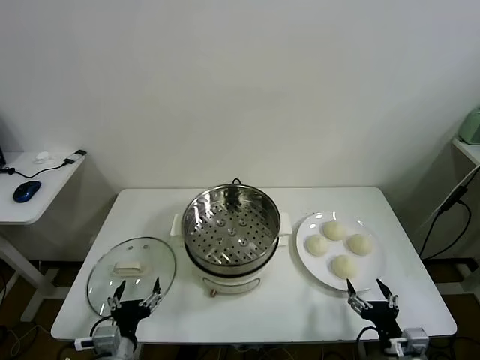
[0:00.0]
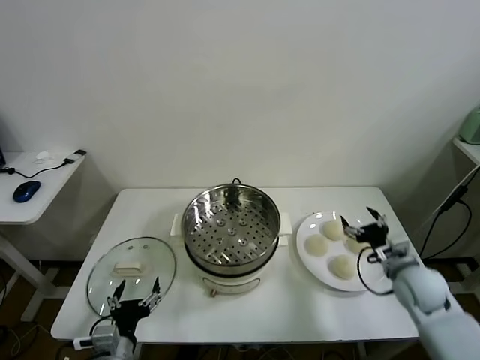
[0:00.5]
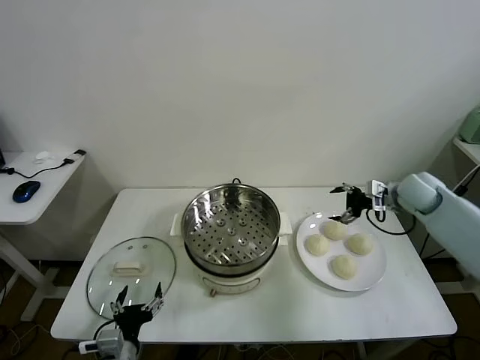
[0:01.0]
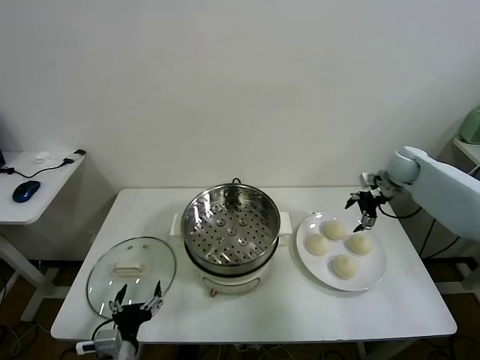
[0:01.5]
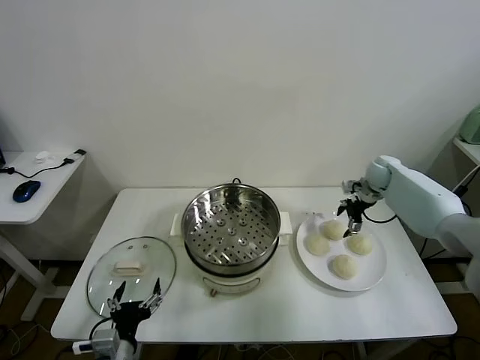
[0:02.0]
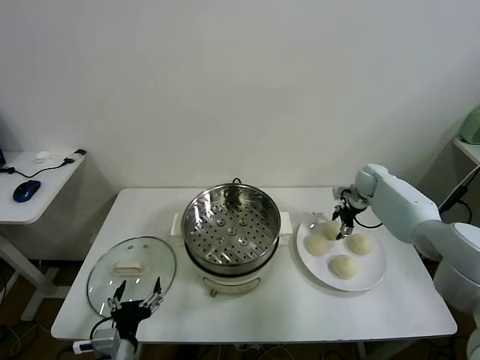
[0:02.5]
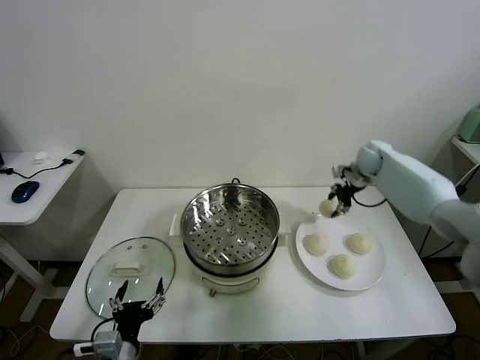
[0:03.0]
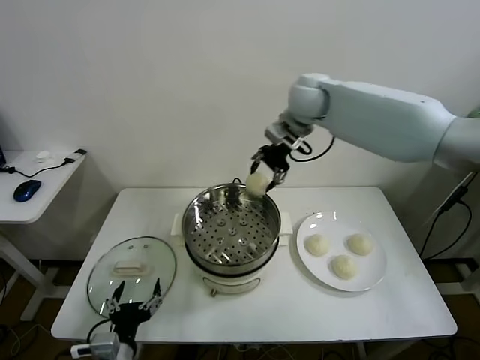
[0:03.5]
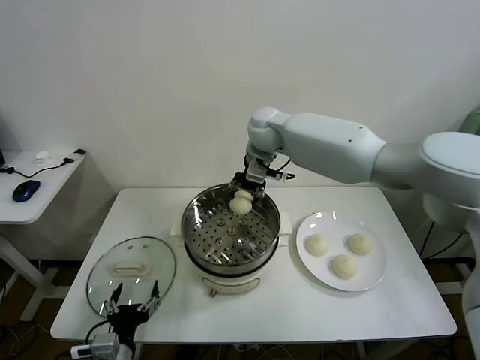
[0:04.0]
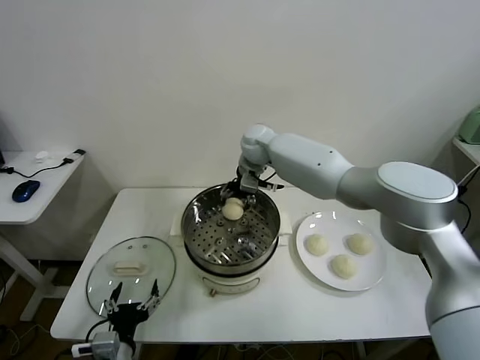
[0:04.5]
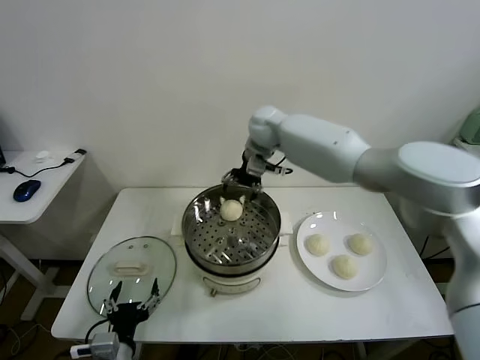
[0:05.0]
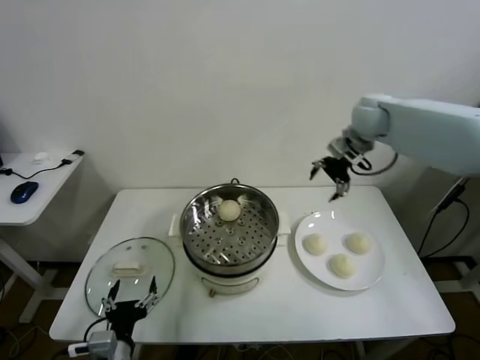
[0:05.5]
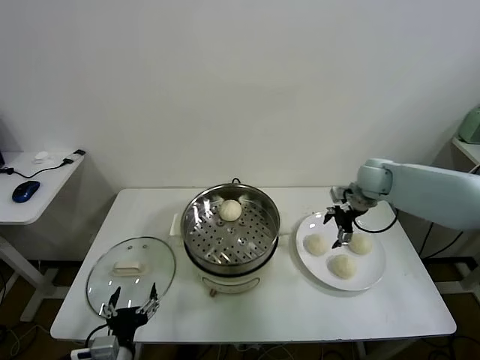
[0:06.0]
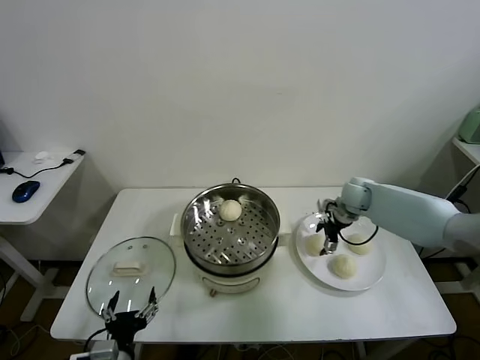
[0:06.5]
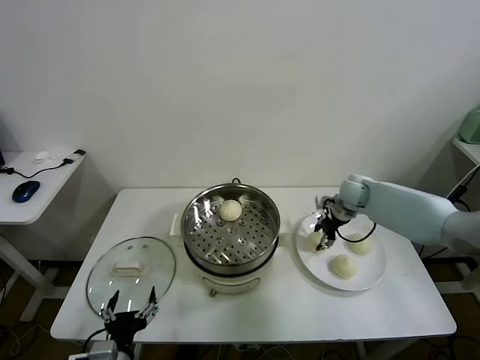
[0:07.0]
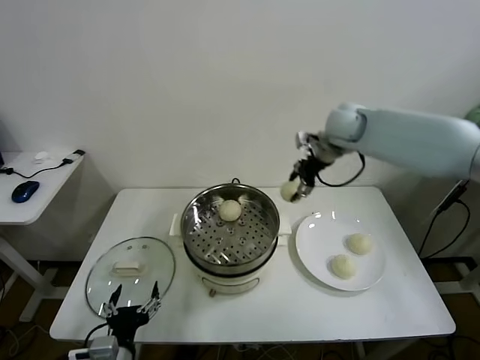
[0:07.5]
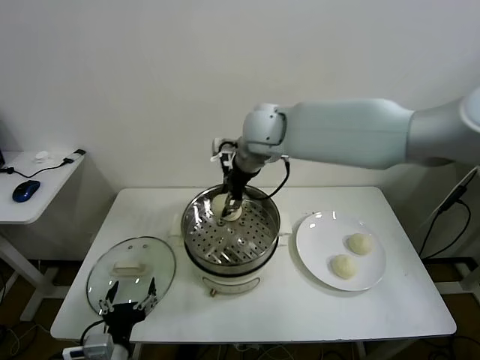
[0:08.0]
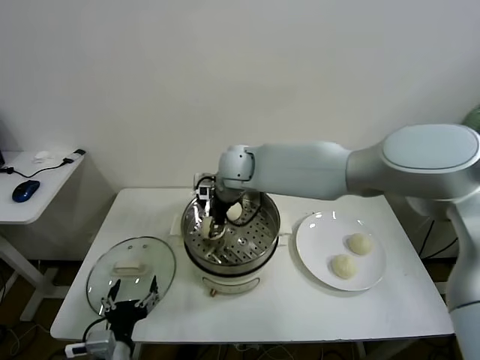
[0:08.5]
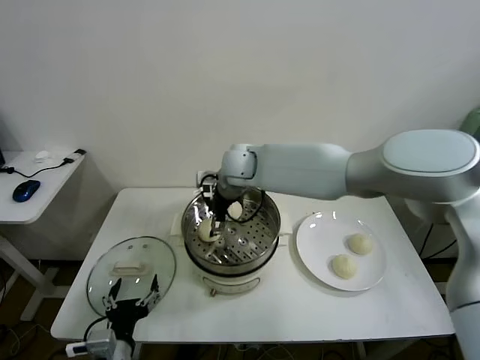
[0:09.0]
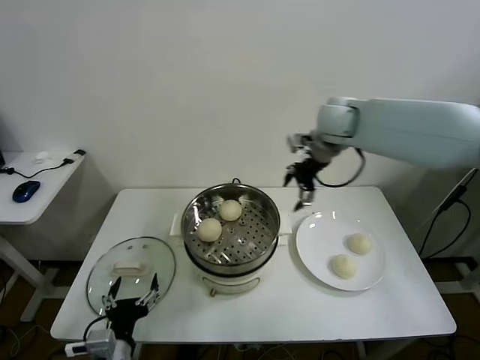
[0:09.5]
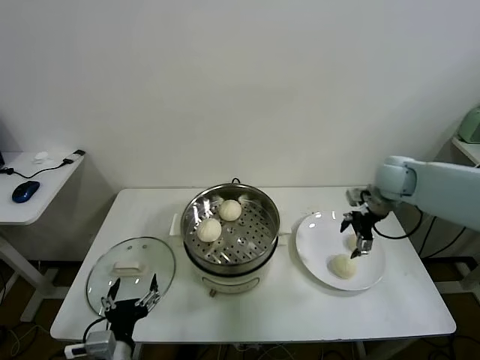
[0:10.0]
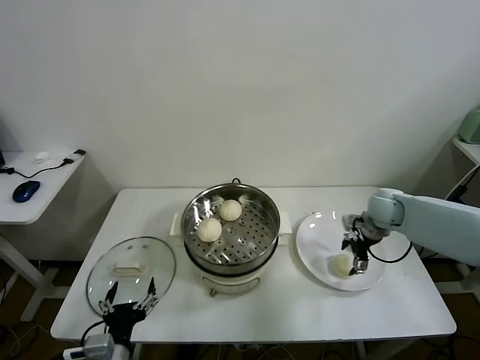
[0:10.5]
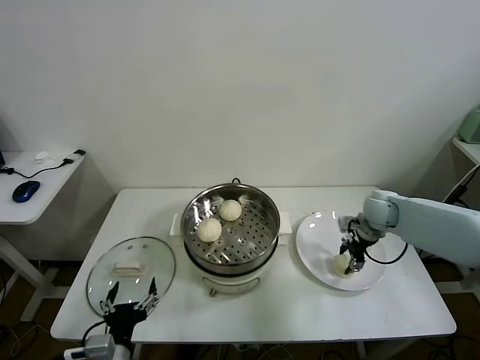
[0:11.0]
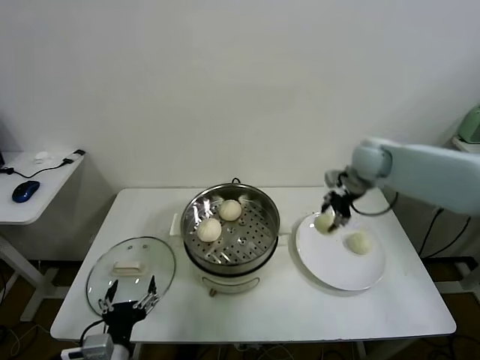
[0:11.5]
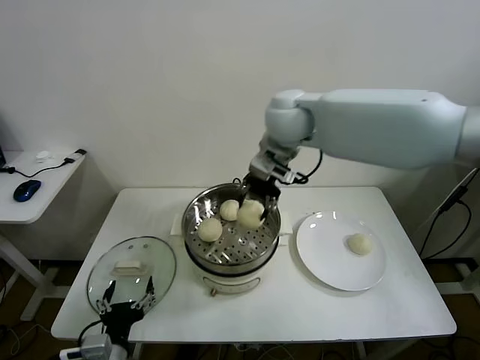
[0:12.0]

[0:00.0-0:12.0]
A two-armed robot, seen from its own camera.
Task of the whole recording: take steamed baozi put them in steamer.
Step, 0:00.0 to 0:02.5: Grasp the baozi in the plate with right gripper.
Step, 0:03.0 to 0:04.5: Place the baozi on the steamer with right gripper.
Step, 0:05.0 to 0:06.5: Grasp the baozi in the plate with right gripper.
Step, 0:07.0 to 0:09.0: Place the baozi on the steamer with right gripper.
Step, 0:09.5 to 0:11.0: Grasp the baozi in the plate with right gripper.
0:02.0 to 0:04.0: The right gripper moves to the left and upward, some 35 cm, and closes up.
0:04.0 to 0:06.0: The right gripper goes about 30 cm to the right and downward, and opens up.
0:06.0 to 0:08.0: The right gripper shifts roughly 35 cm to the left and upward, and closes up.
0:08.0 to 0:10.0: The right gripper moves to the right, about 35 cm, and opens up.
0:10.0 to 0:12.0: The right gripper shifts some 35 cm to the left and upward, and closes its fingers.

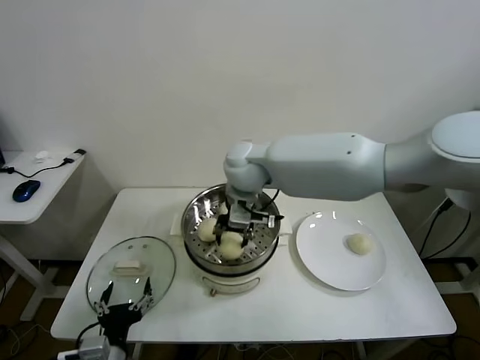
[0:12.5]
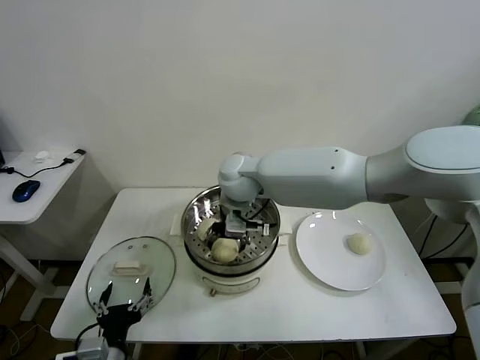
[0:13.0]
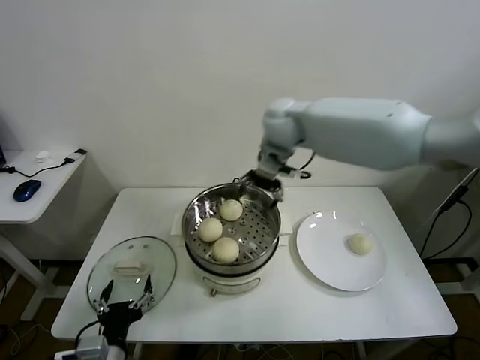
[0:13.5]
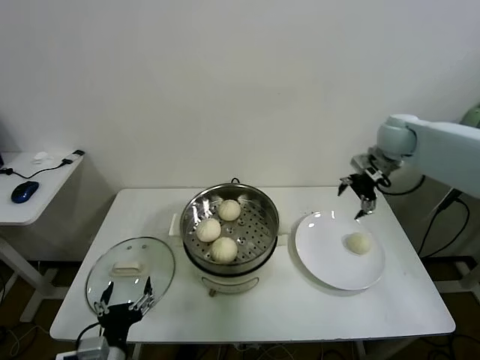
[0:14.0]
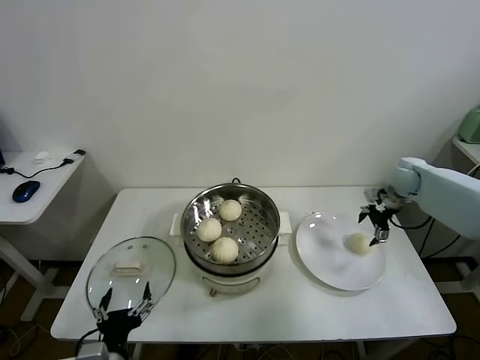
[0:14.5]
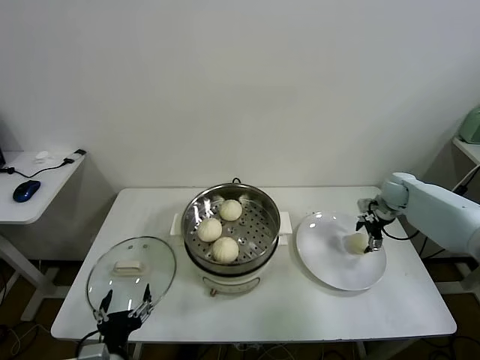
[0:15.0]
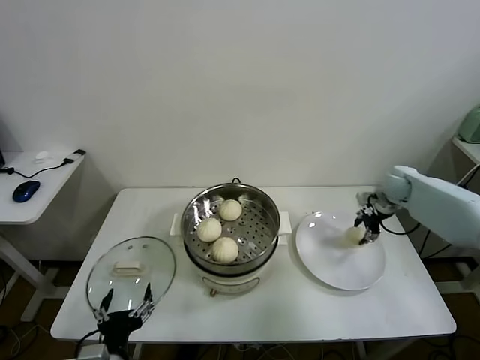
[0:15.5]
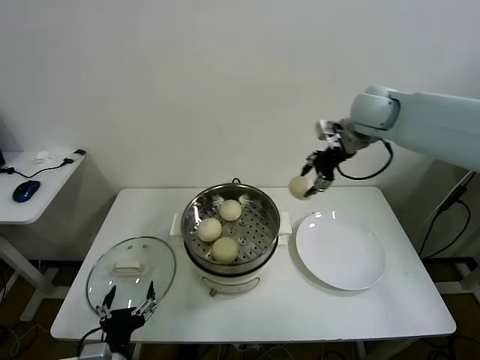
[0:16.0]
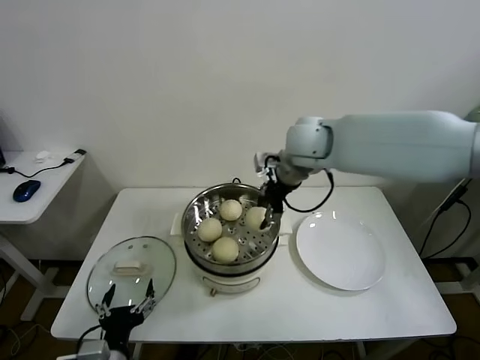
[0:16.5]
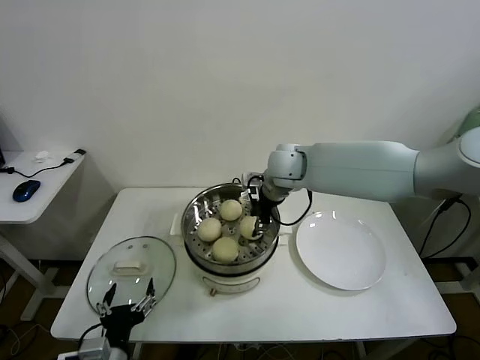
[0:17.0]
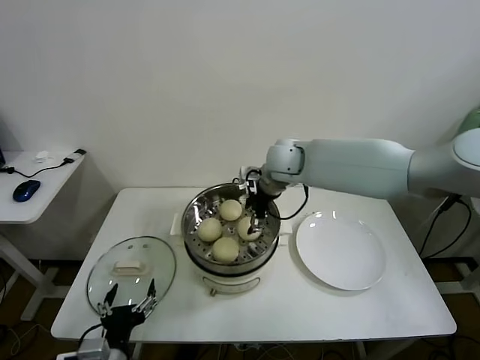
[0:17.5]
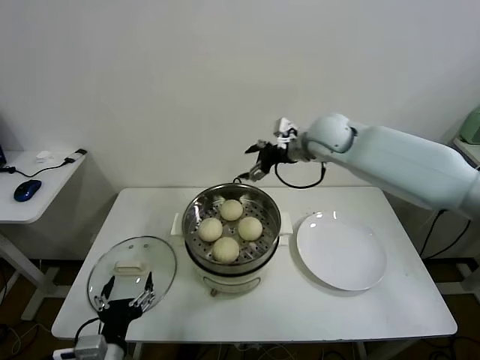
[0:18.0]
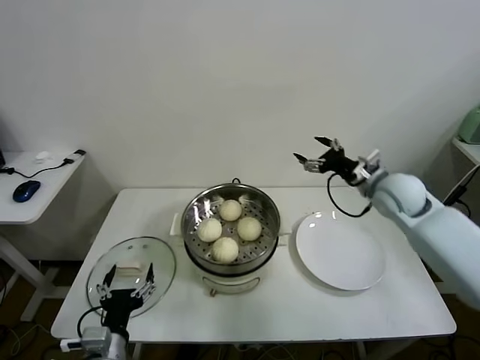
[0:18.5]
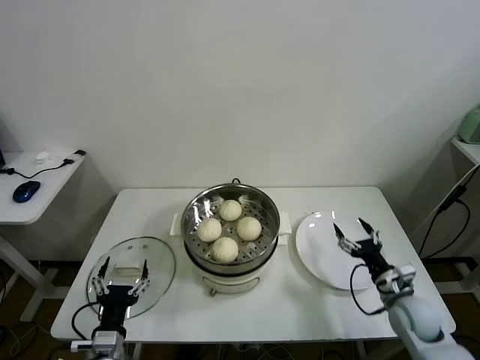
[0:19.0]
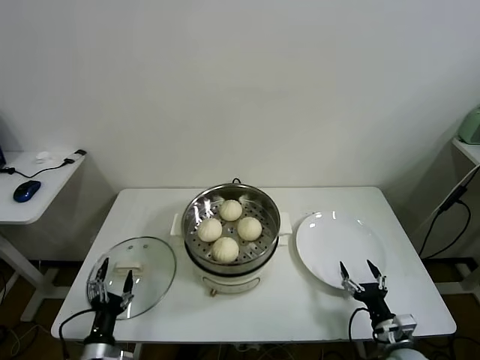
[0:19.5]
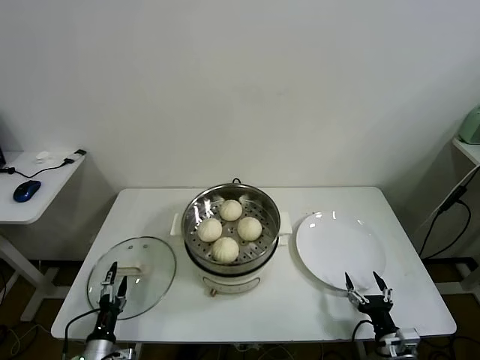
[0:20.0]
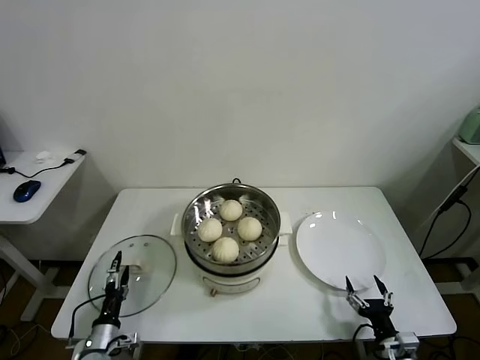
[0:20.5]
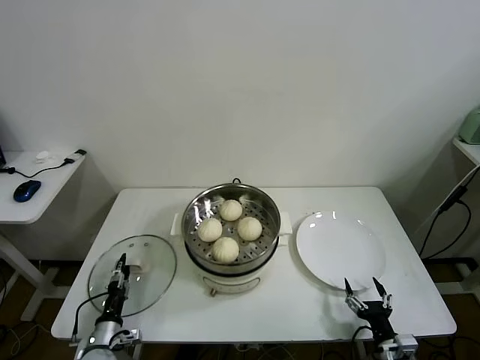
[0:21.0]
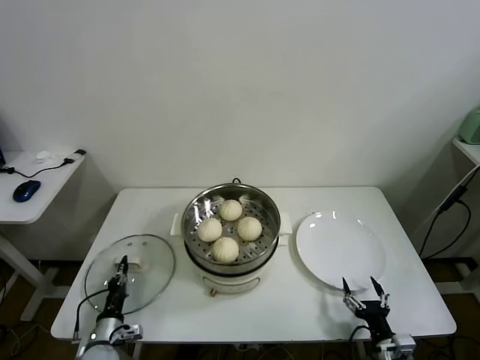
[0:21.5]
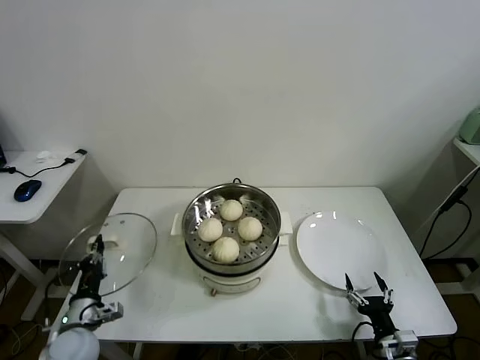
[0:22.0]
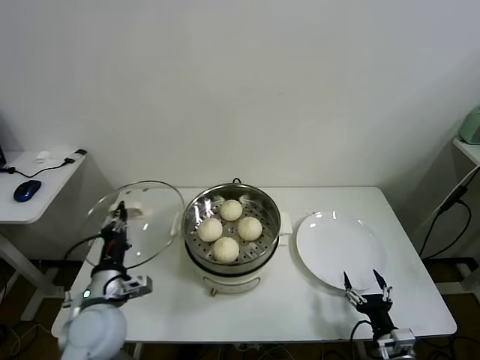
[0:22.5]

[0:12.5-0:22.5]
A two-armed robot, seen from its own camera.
Task of the whole recording: take steamed baozi put them in steamer.
Step, 0:13.5 to 0:15.0: Grasp the baozi in the plate with right gripper.
Step, 0:15.5 to 0:17.5: Place the baozi on the steamer with right gripper.
Step, 0:18.0 to 0:21.5: Grasp the pot lid with left gripper.
0:12.5 to 0:14.5: The right gripper travels to the right by roughly 40 cm, and opens its fingers.
0:14.5 to 0:16.5: The right gripper shifts approximately 35 cm to the left and upward, and closes.
0:16.5 to 0:18.5: The right gripper moves to the right and downward, approximately 25 cm, and opens.
0:18.5 to 0:20.5: The right gripper goes approximately 40 cm backward and downward. The left gripper shifts roughly 20 cm downward and to the left.
0:20.5 to 0:22.5: The left gripper travels upward by approximately 20 cm, and closes its fingers.

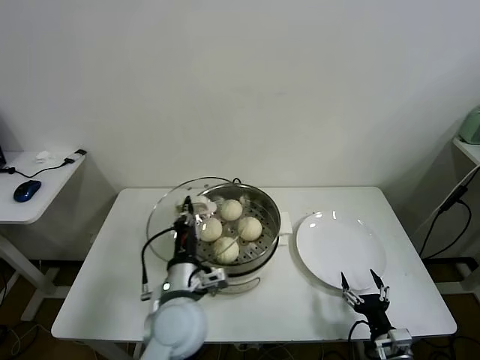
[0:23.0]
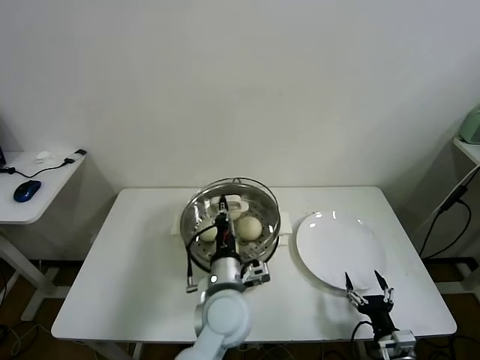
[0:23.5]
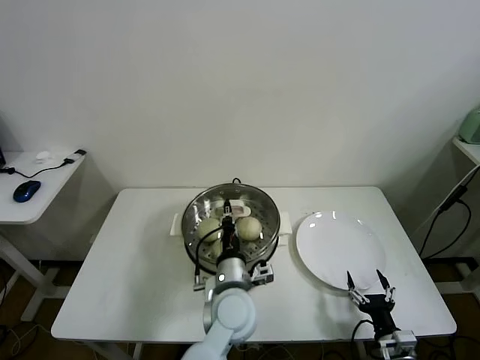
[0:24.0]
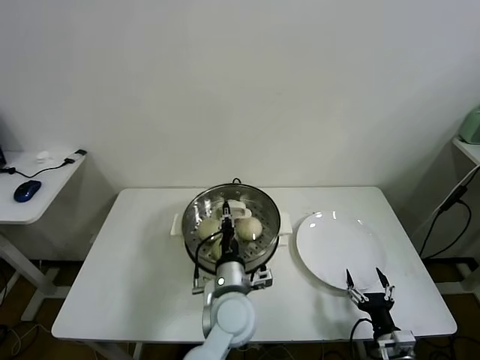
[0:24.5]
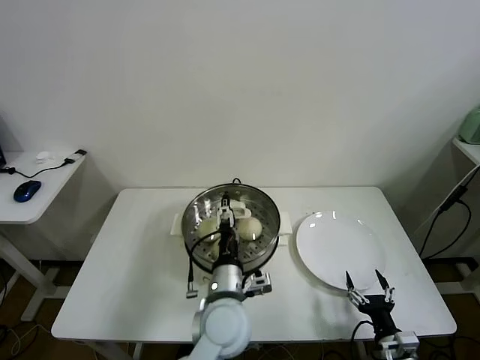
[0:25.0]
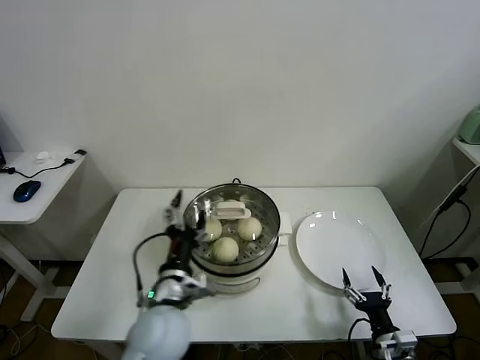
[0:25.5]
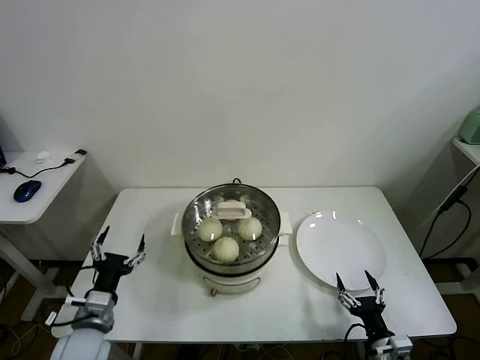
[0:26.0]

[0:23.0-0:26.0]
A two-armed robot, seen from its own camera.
Task of the whole recording: take steamed baozi put them in steamer.
Step, 0:23.0 to 0:25.0: Place the pot lid on the steamer with left gripper.
0:23.0 to 0:24.5: The left gripper is displaced to the right by roughly 10 cm.
0:24.5 to 0:26.0: The left gripper heads to the left, covering some 30 cm, and opens.
